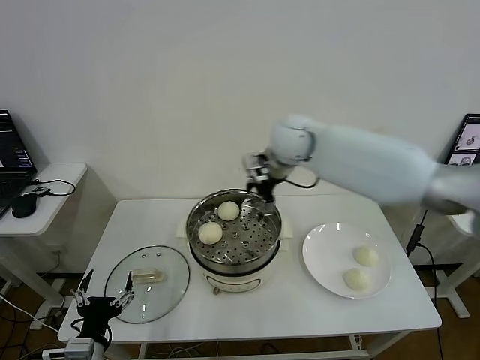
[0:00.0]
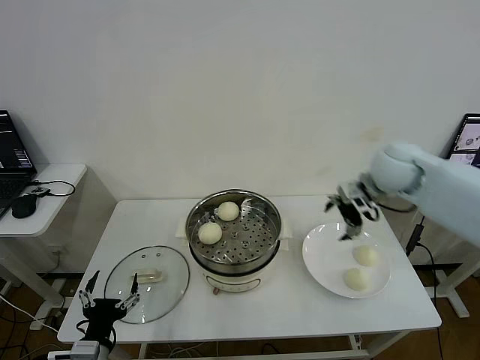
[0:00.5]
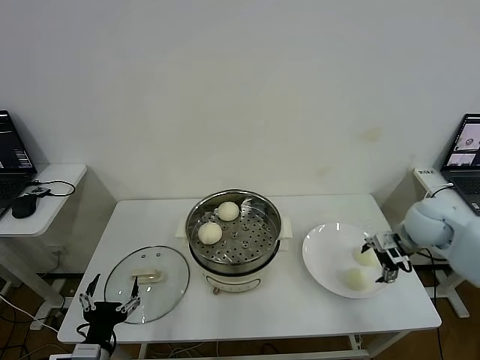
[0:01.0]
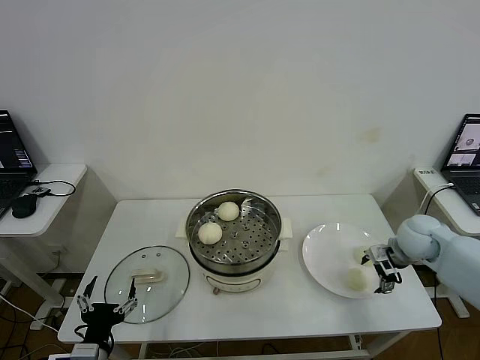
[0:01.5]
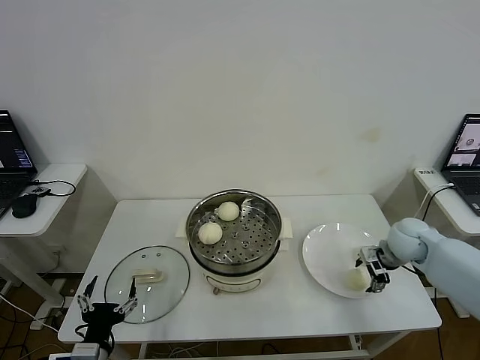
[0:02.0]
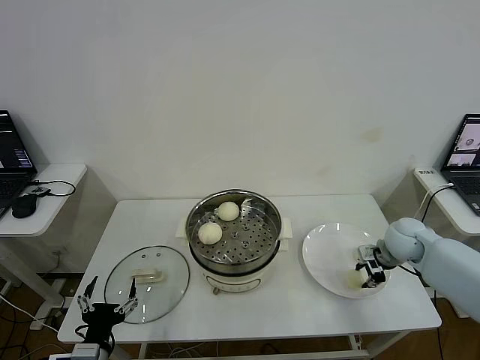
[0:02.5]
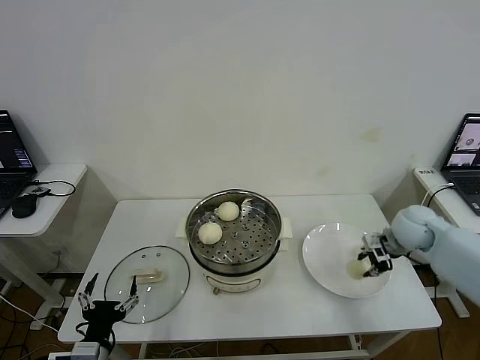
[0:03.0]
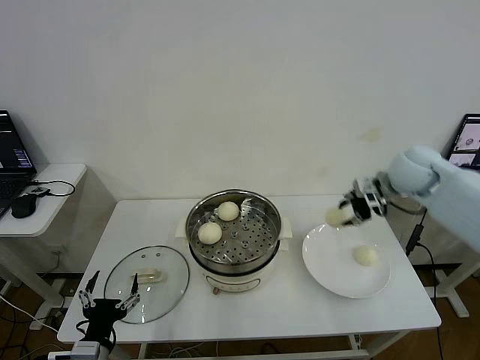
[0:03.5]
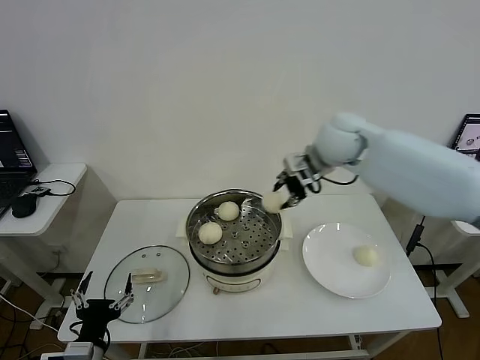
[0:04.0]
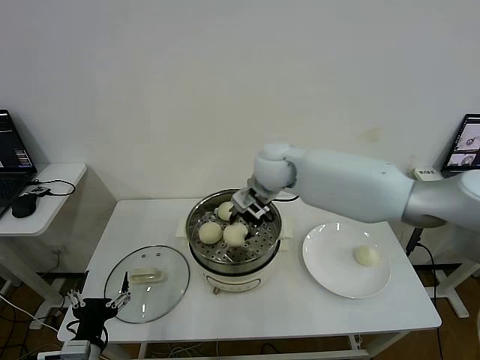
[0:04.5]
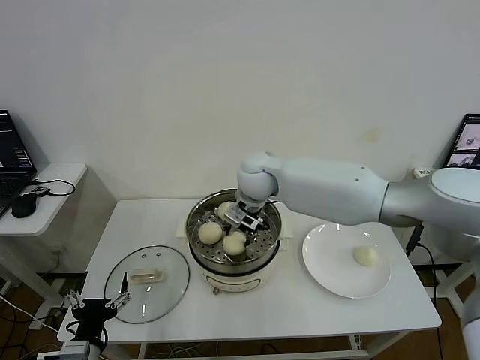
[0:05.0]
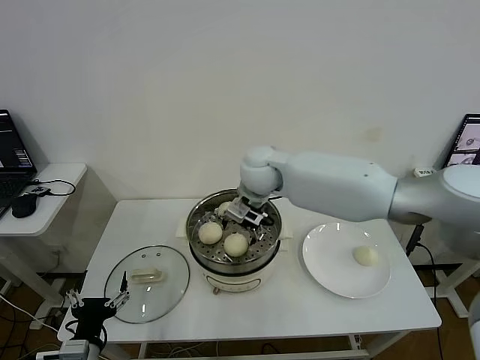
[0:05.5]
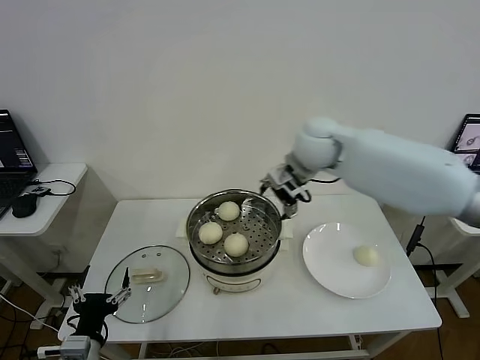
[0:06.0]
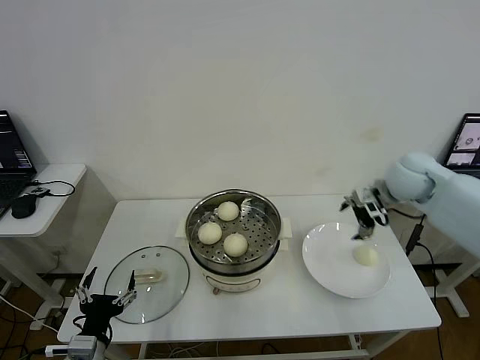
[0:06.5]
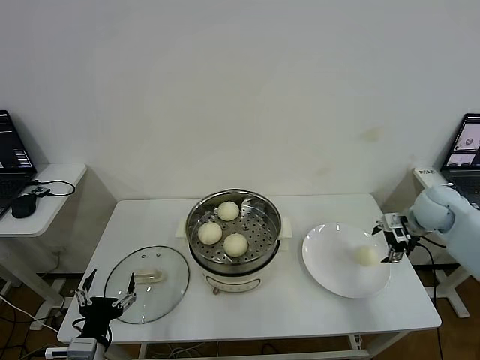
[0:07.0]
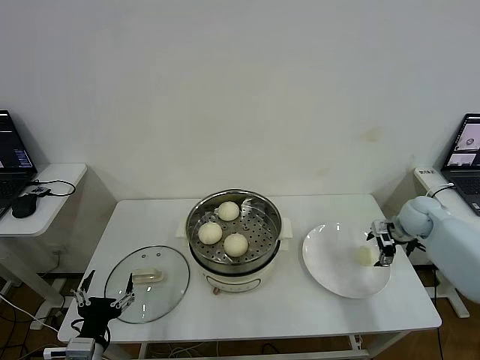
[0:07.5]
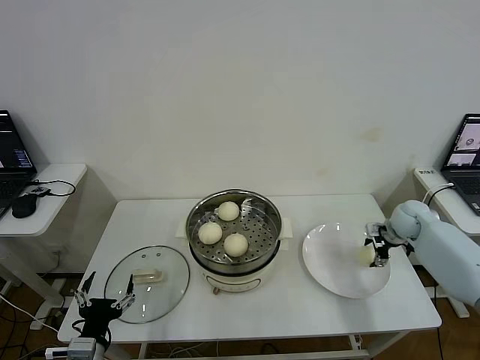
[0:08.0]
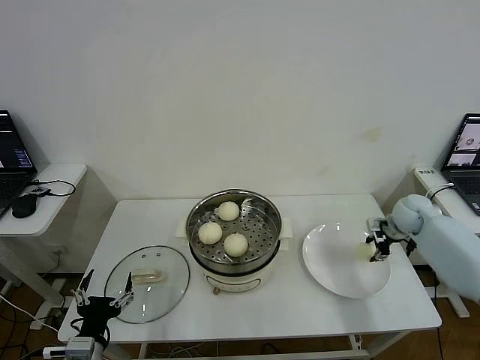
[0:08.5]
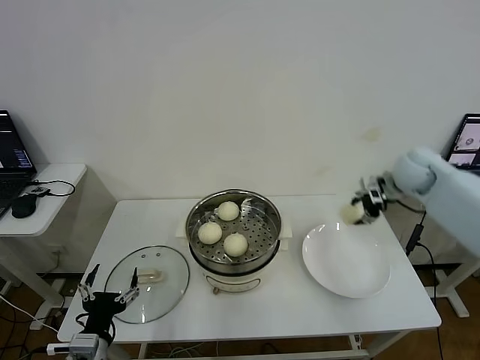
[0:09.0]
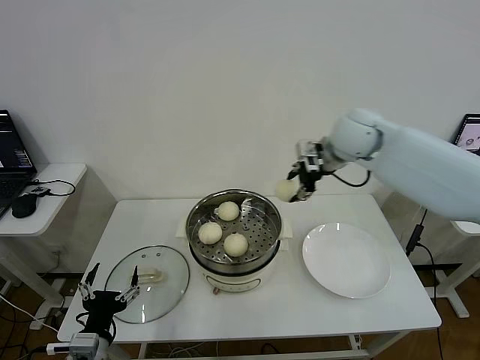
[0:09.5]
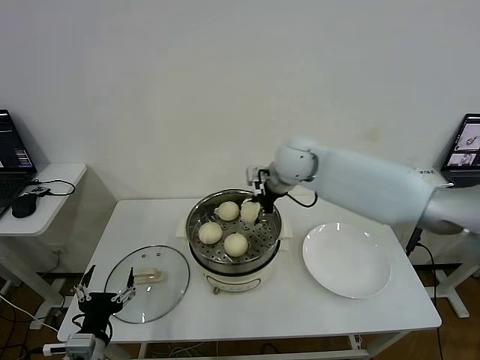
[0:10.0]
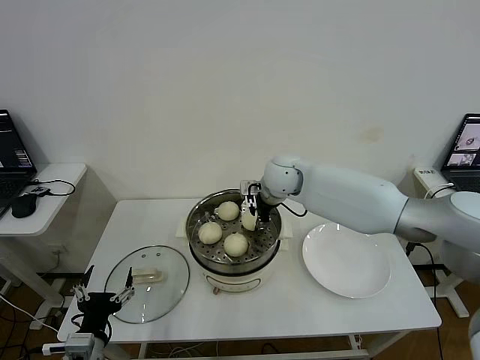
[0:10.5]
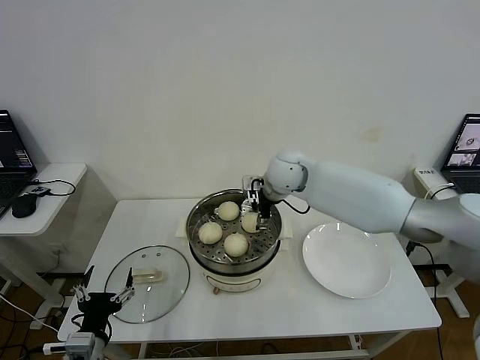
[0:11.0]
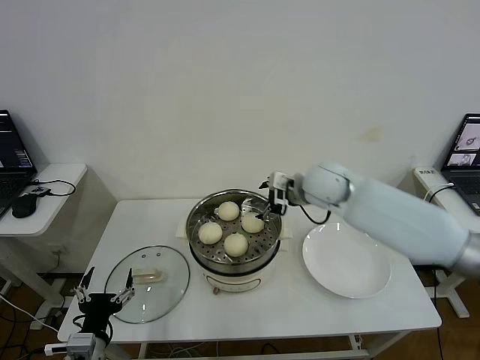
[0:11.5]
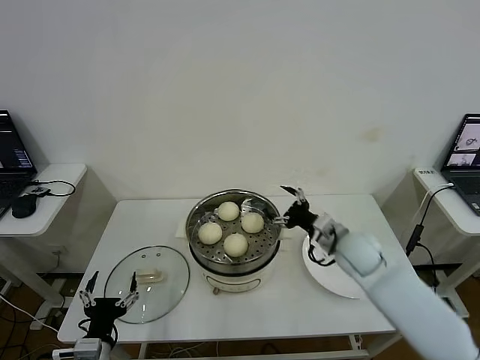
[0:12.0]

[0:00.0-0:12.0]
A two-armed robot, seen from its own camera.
Step, 0:00.0 to 0:02.5: Grasp the baozi in the plate with right gripper.
Step, 0:03.0 to 0:05.0: Place the baozi on the steamer with right gripper.
Step, 0:05.5 to 0:08.0: Grasp the baozi in the plate with right gripper.
Step, 0:08.5 to 0:11.0: Place the baozi on the steamer with right gripper.
0:00.0 to 0:02.0: The right gripper travels to the right and downward by some 35 cm.
0:02.0 to 0:04.0: The right gripper travels upward and to the left by roughly 30 cm, and closes.
0:04.0 to 0:06.0: The right gripper reaches roughly 15 cm to the left, then returns, and opens up.
0:06.0 to 0:08.0: The right gripper shifts some 35 cm to the right and downward.
0:08.0 to 0:10.0: The right gripper travels to the left and upward by about 35 cm.
0:10.0 to 0:12.0: The right gripper moves downward, to the right and backward, approximately 25 cm, and opens its fingers.

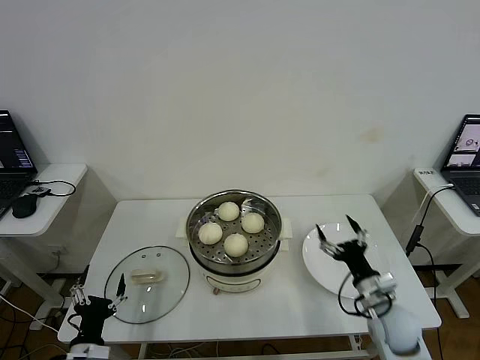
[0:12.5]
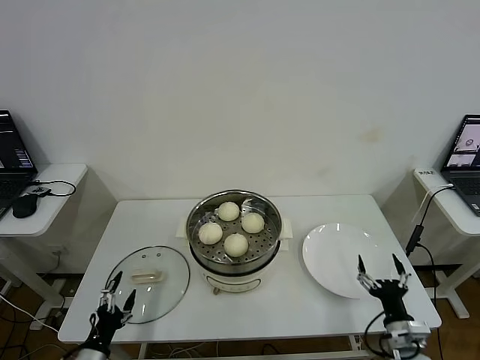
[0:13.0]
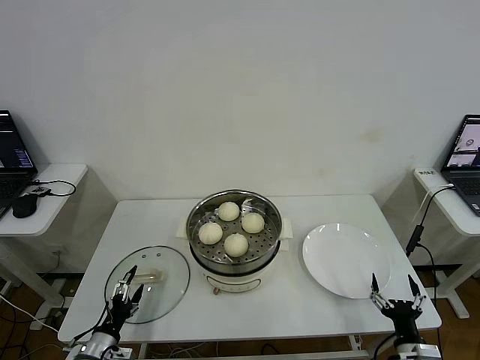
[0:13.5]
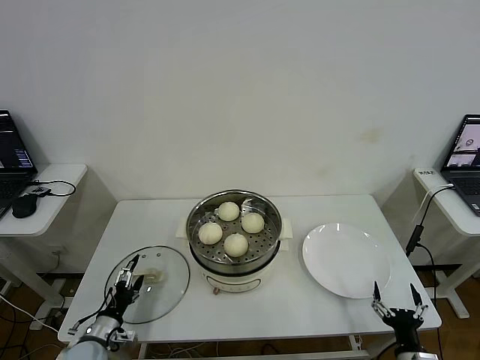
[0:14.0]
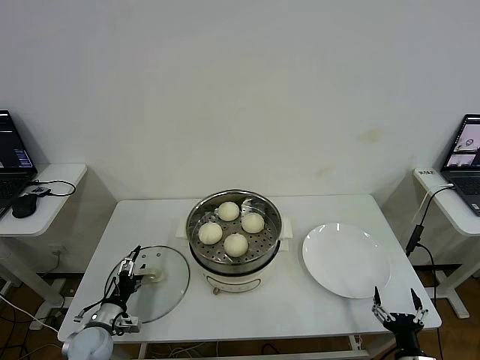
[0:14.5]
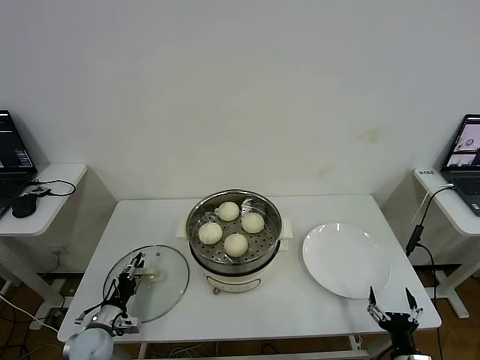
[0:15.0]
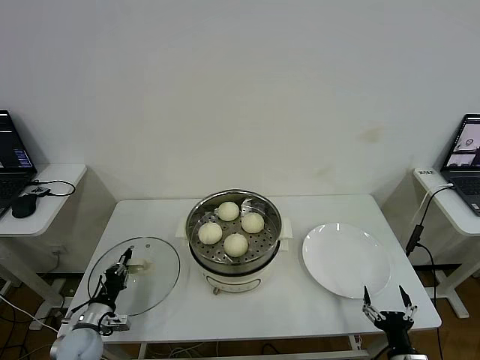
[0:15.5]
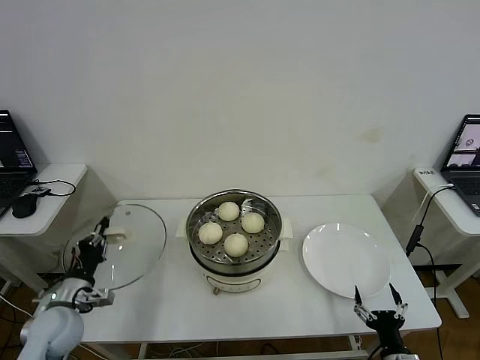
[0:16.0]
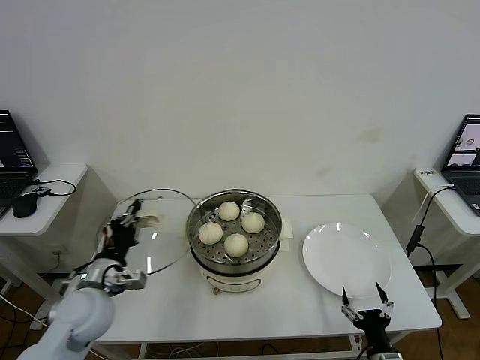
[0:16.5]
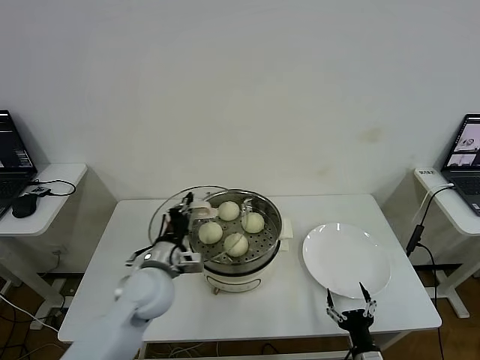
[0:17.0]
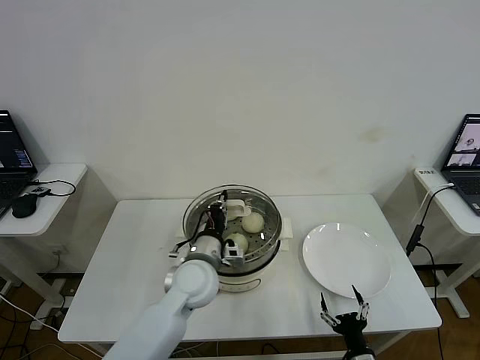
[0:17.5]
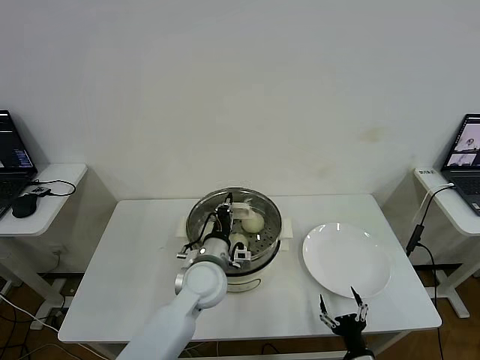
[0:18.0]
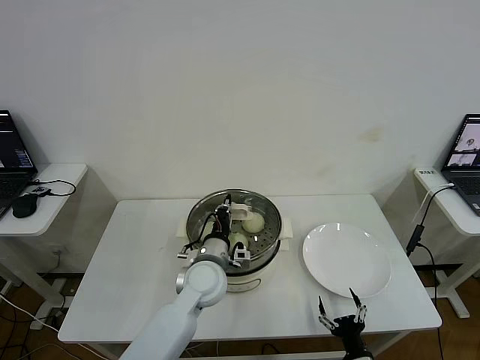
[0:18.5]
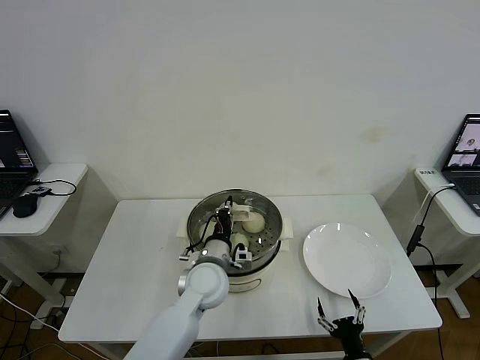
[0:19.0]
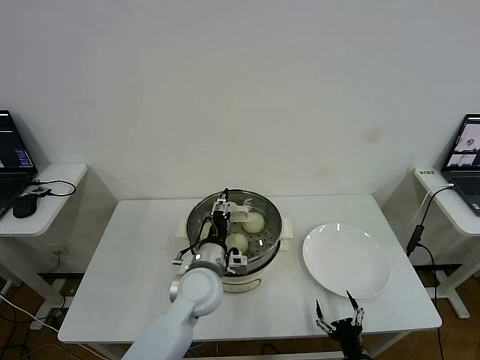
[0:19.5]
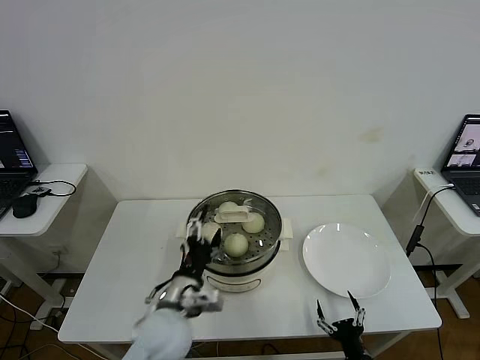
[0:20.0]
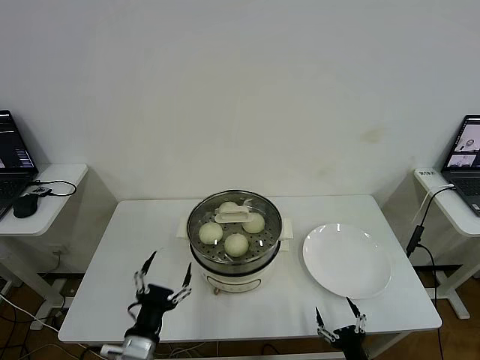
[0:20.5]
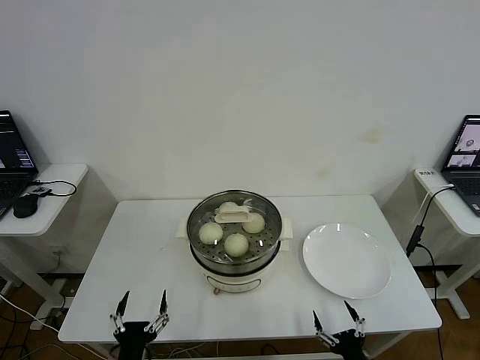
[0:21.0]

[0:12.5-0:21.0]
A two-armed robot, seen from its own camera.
Step, 0:12.5 to 0:15.5: Grasp the pot lid with left gripper.
Step, 0:16.0 to 0:19.5: Place the pot lid on the steamer with left gripper.
0:12.5 to 0:14.5: The left gripper moves forward and downward, about 15 cm. Meanwhile the right gripper goes approximately 20 cm backward and downward.
0:14.5 to 0:16.5: The left gripper travels upward by approximately 20 cm, and closes.
0:16.5 to 0:19.0: The right gripper shifts by some 5 cm; the left gripper moves to the right, roughly 25 cm.
0:19.0 to 0:21.0: The right gripper shifts by about 5 cm. Meanwhile the left gripper travels backward and to the left by approximately 30 cm, and opens.
